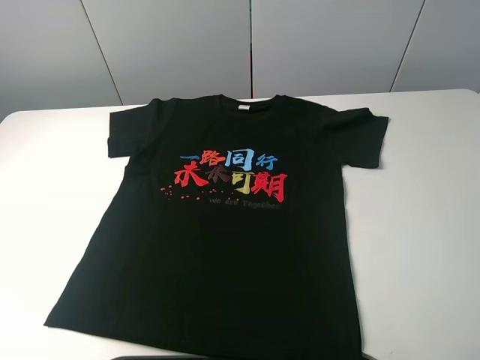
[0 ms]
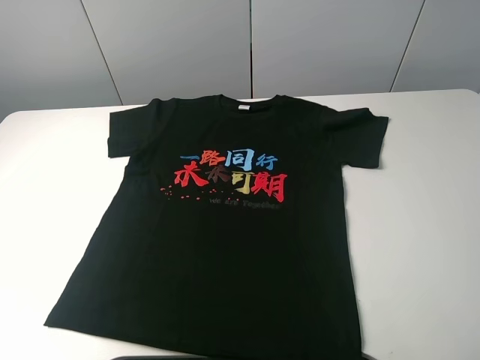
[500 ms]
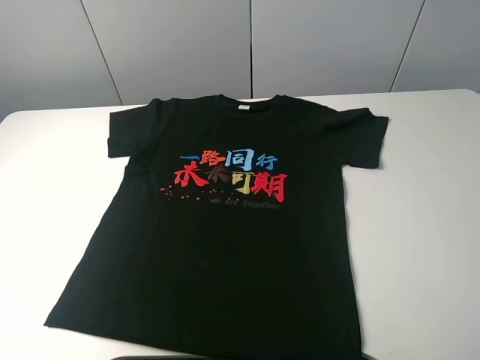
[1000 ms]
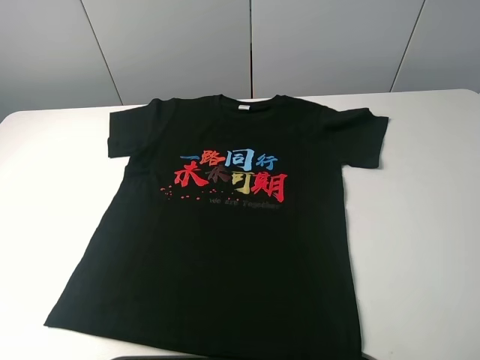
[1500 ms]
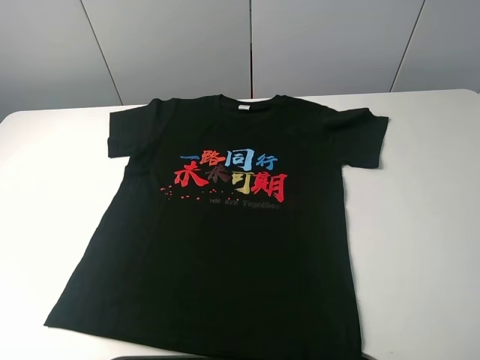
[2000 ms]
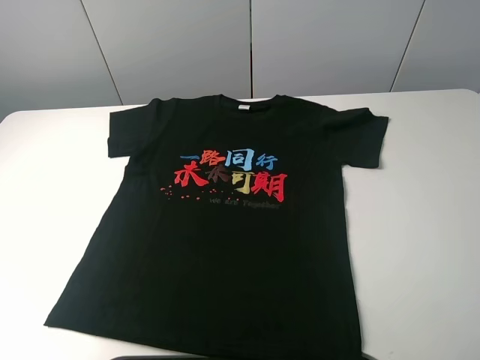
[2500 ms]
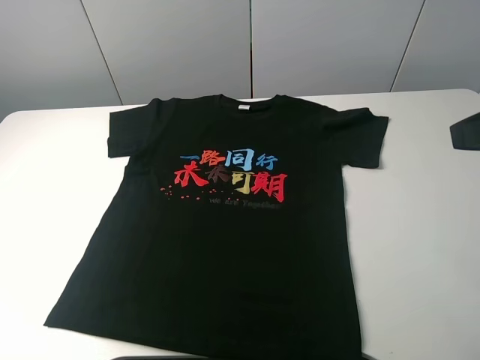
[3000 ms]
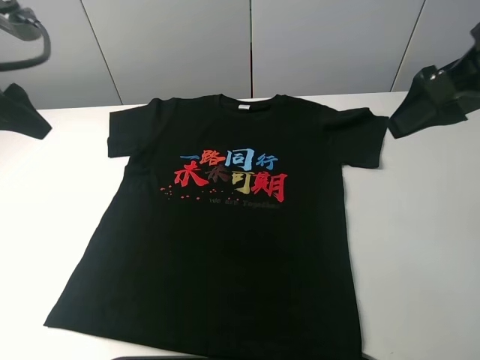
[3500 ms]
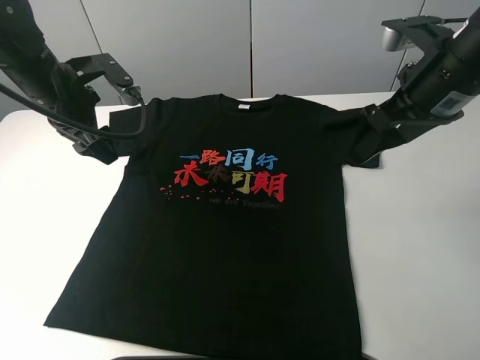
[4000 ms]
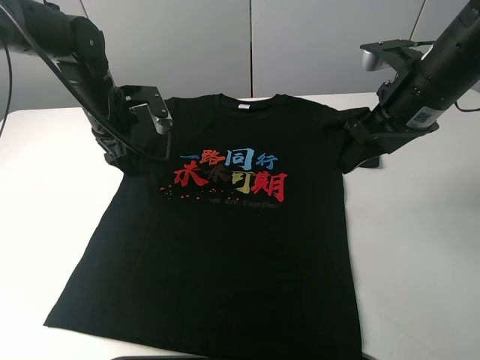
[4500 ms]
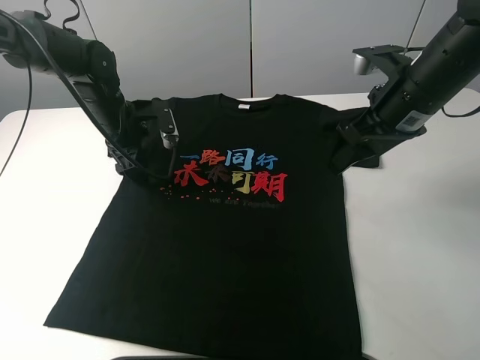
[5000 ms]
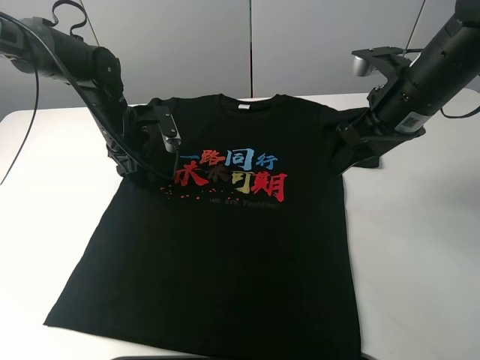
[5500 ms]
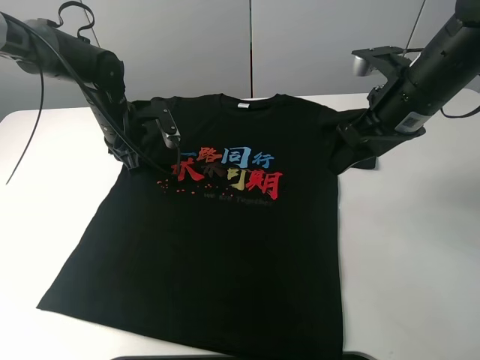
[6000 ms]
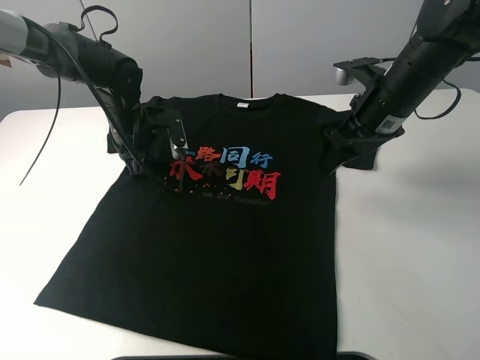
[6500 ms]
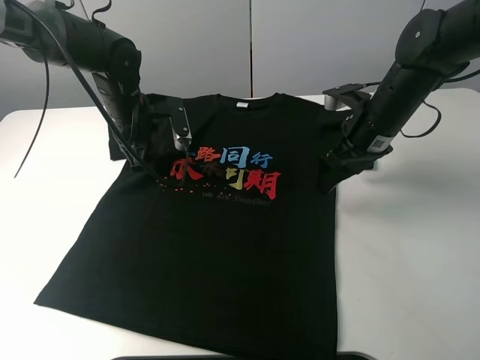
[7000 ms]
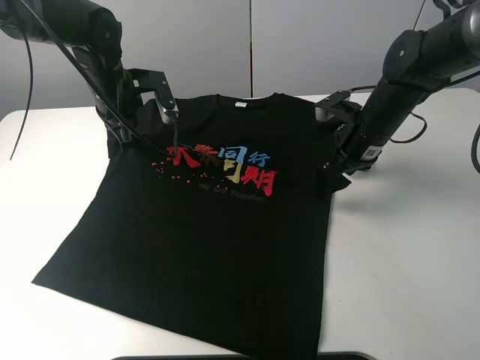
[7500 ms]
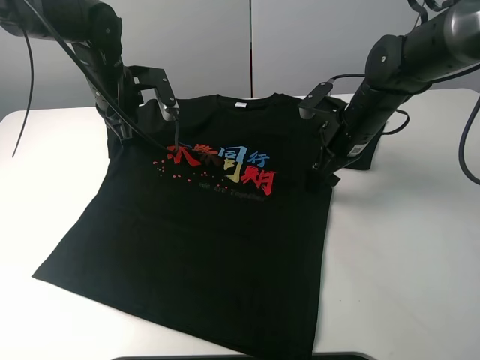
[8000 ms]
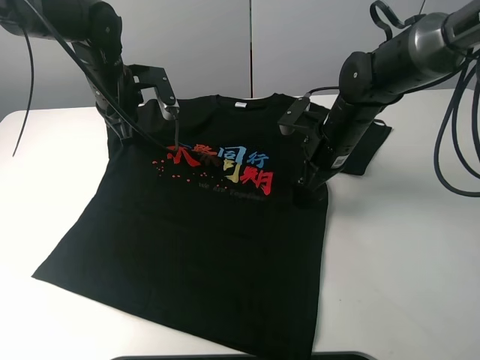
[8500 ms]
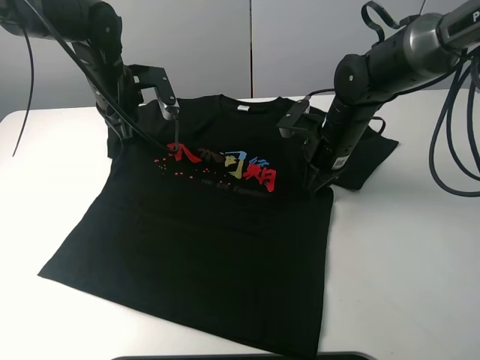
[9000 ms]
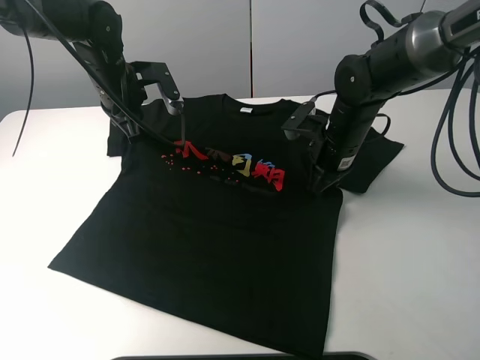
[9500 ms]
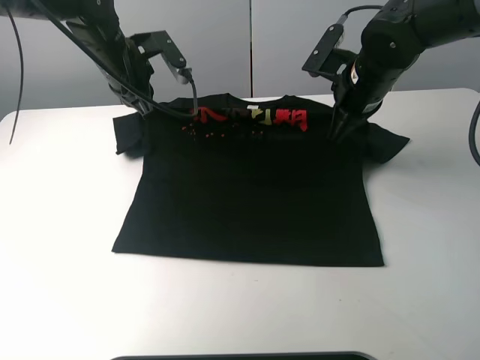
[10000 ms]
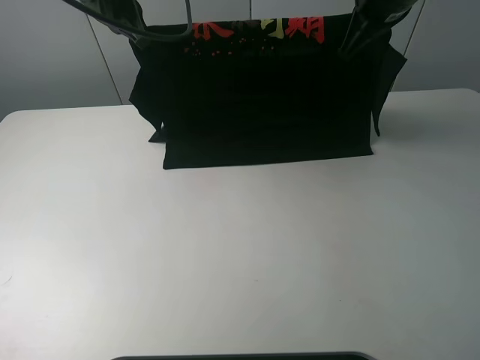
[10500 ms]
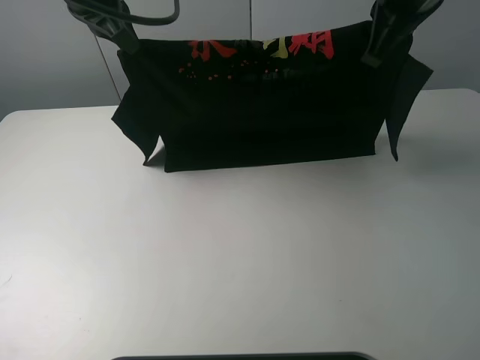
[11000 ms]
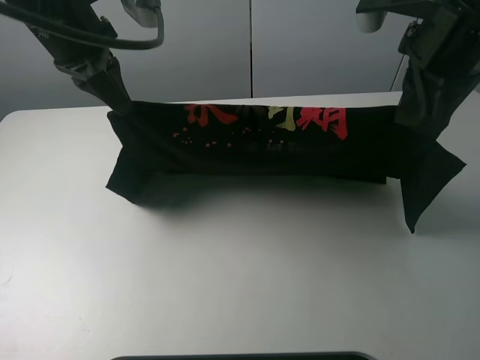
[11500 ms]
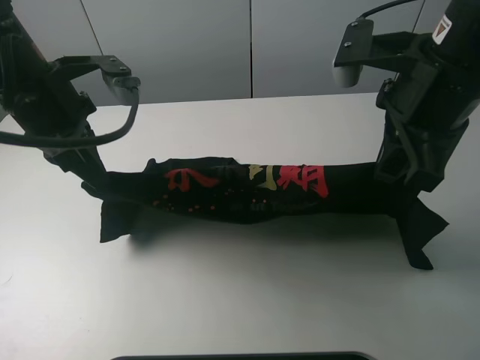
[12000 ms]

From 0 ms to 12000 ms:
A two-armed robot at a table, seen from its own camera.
Task of the whole recording: fold the clothes on the table.
Step, from 0 ms to 9000 ms: Lift the black T-shirt with the left gripper.
From 2000 ms to 4000 ms: Both grippers move forward, approximately 30 cm.
From 4000 ms to 6000 ms: The left gripper travels downward and forward by about 10 cm, and closes its fingers.
From 6000 ms to 8000 ms: The left gripper shifts about 5 cm upward. Meanwhile the right gripper moves downward and forward, some 10 cm.
From 8000 ms to 10000 ms: The right gripper goes some 5 cm upward, and closes.
From 10000 ms to 12000 ms: The left gripper is displaced backward by some 15 cm. The right gripper shifts roughly 15 cm backward and upward.

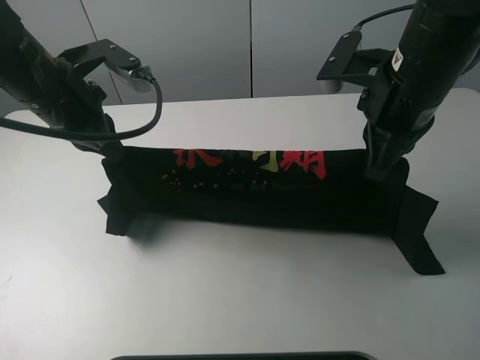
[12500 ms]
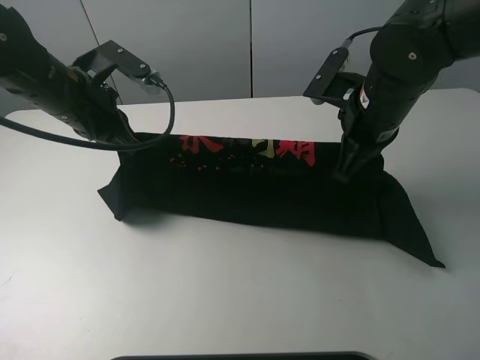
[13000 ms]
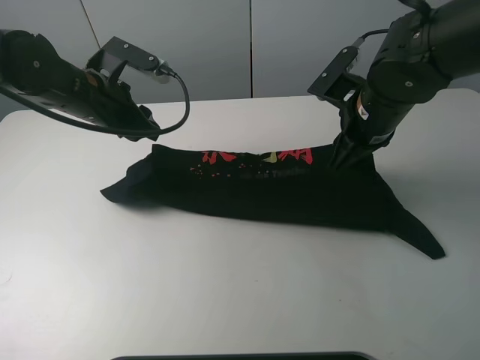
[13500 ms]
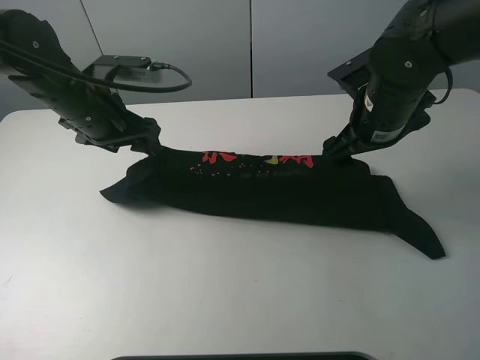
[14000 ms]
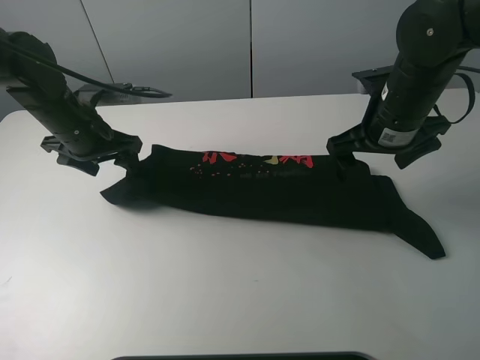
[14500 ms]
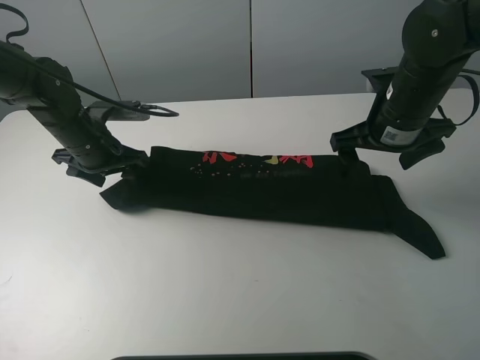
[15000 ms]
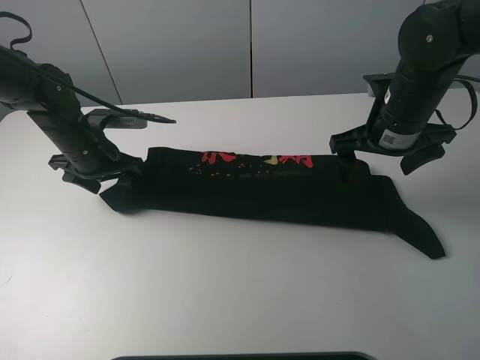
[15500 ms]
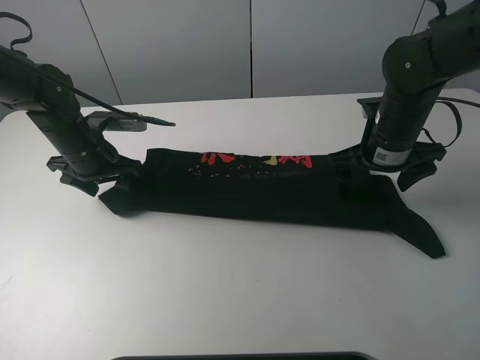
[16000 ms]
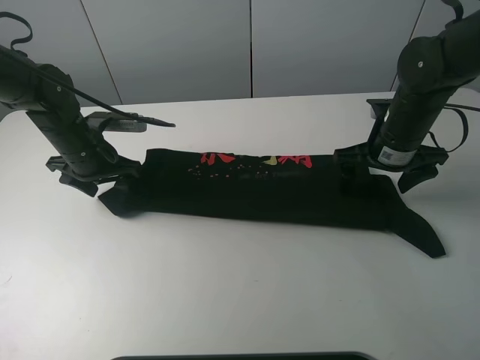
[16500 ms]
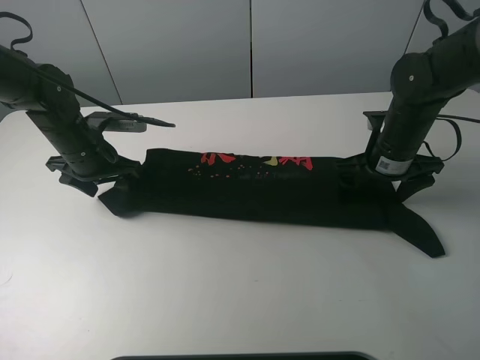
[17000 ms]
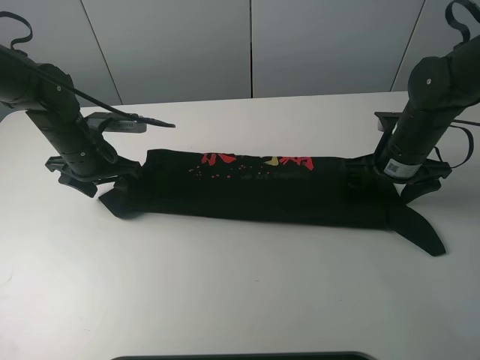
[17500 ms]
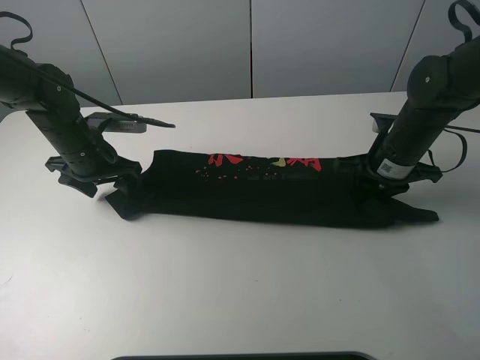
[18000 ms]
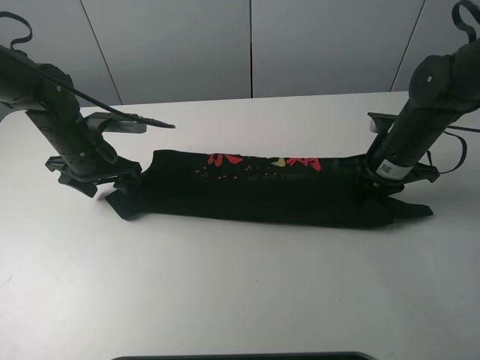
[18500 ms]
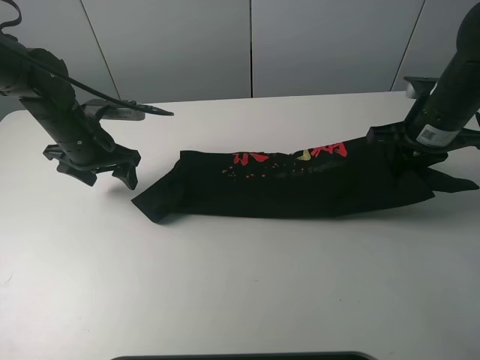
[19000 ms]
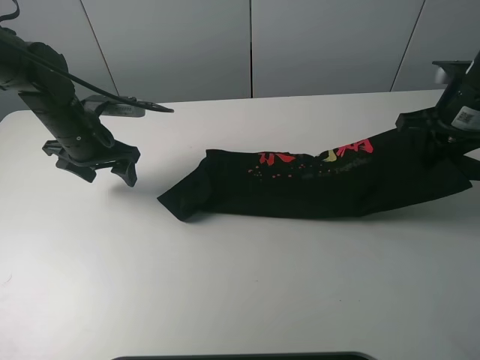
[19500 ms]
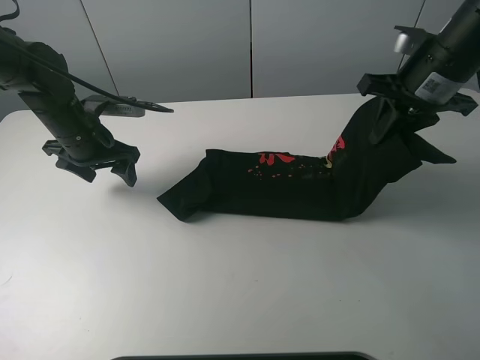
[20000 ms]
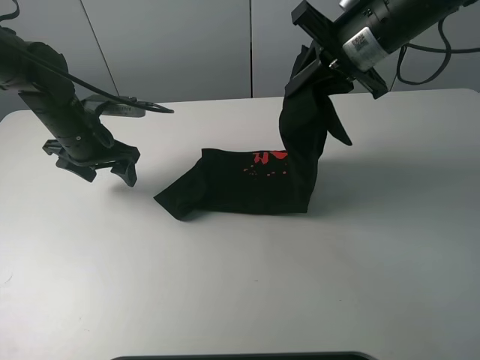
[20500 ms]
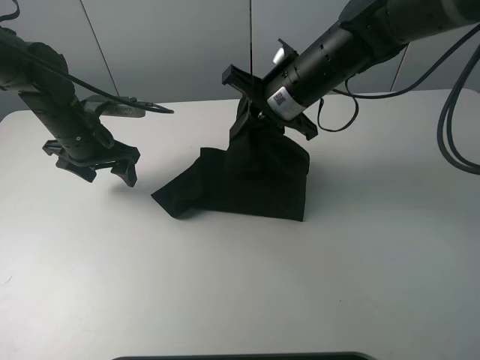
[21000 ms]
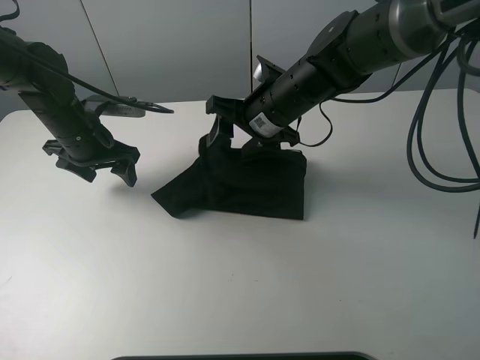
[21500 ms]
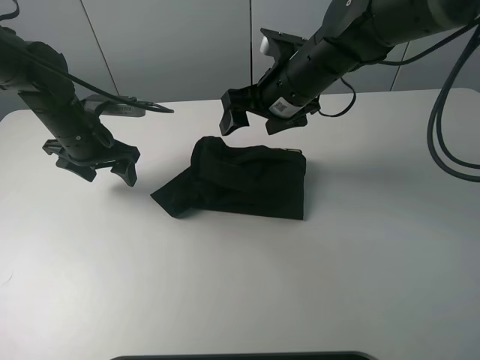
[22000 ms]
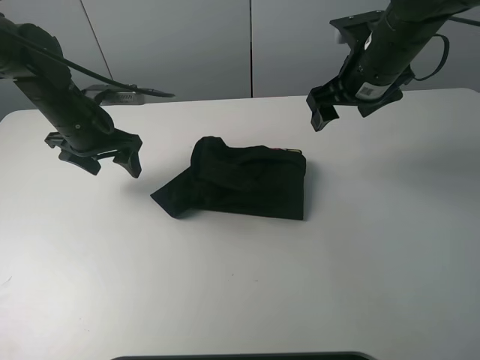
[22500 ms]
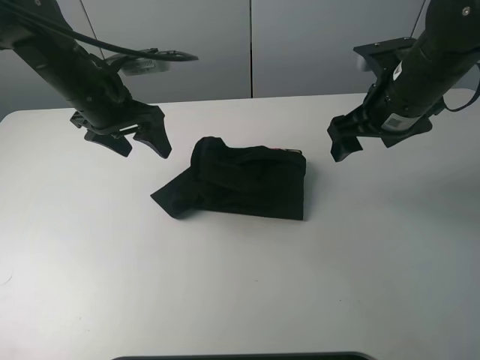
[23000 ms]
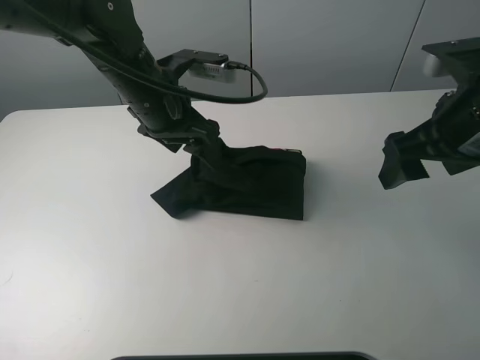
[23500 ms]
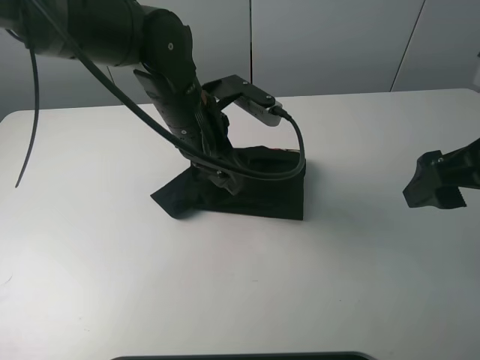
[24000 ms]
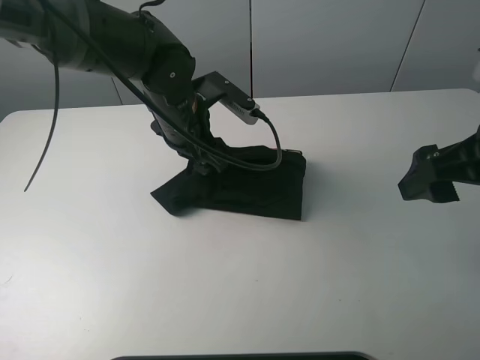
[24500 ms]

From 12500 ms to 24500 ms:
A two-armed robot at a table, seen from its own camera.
Task of the whole recording: fold the clothes on the table.
Step, from 14000 ms to 18000 ms: Grasp the black T-shirt with the right gripper.
Step, from 18500 ms to 21500 ms: Fold the black T-shirt from right to left with right gripper.
From 12500 ms to 14500 ms: The left gripper moves downward and forward, approximately 10 cm, and opens its fingers; the right gripper is displaced downward by about 5 cm, and opens up.
From 14500 ms to 16500 ms: The right gripper moves downward, some 5 cm.
From 16500 ms to 18500 ms: The right gripper closes.
From 18500 ms to 20500 ms: The right gripper travels upward and to the left by approximately 15 cm.
From 20500 ms to 22500 ms: The right gripper goes roughly 5 cm downward, reaches about 10 cm to the left, then returns, and opens up.
From 22500 ms to 24500 ms: The left gripper is displaced to the right by about 15 cm. Meanwhile the right gripper heads backward, covering roughly 20 cm.

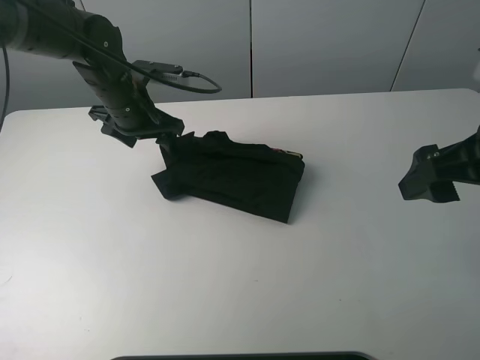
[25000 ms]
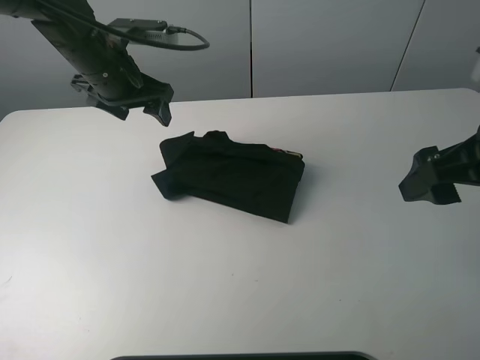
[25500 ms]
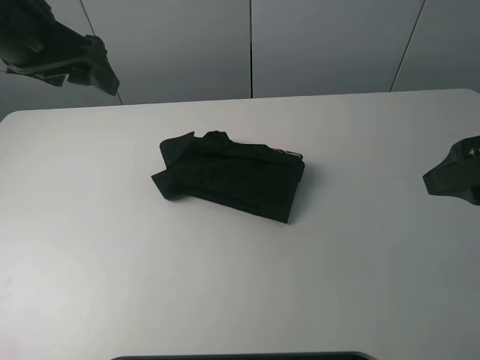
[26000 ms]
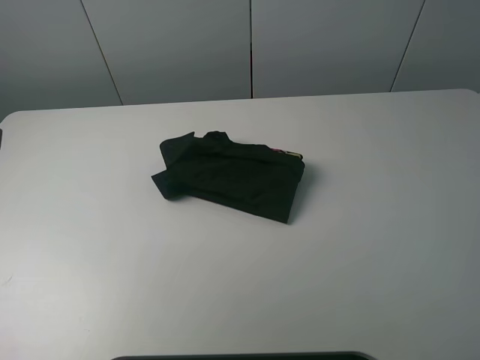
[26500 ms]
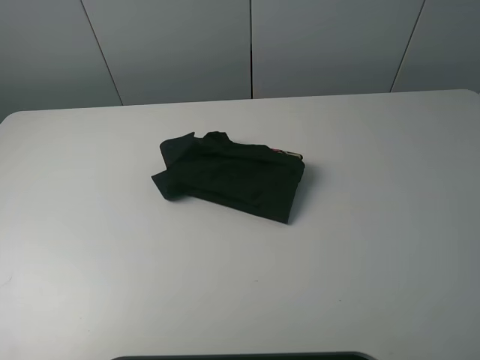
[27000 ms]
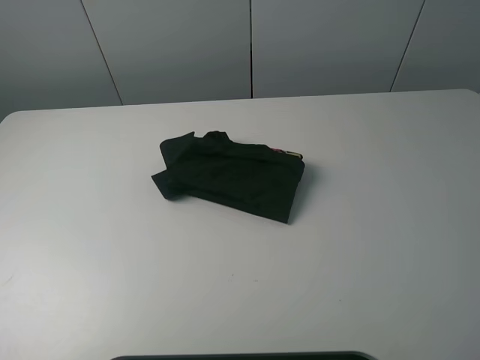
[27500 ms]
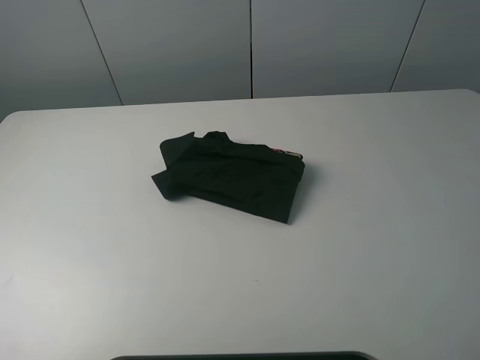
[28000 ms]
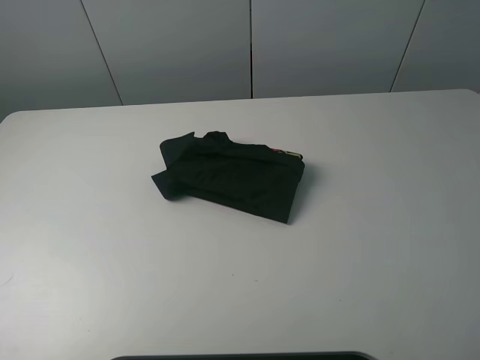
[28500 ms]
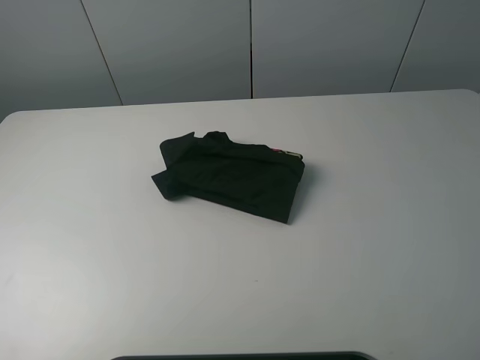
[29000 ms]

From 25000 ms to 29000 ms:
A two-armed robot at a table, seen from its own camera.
Task of the whole recording: fold the clothes on the table.
From 25000 ms to 27000 ms: The right gripper travels backward by roughly 15 cm, while the left gripper goes some 40 cm backward, to the left and upward.
